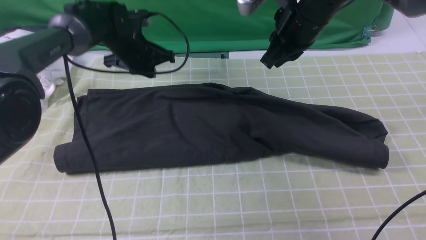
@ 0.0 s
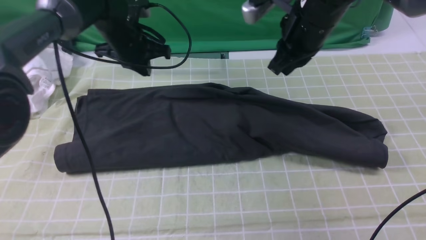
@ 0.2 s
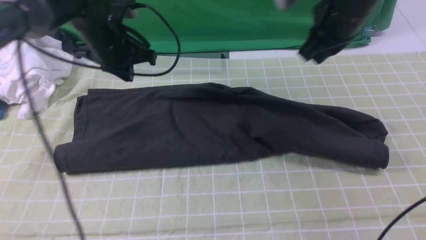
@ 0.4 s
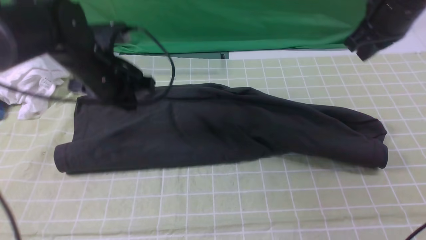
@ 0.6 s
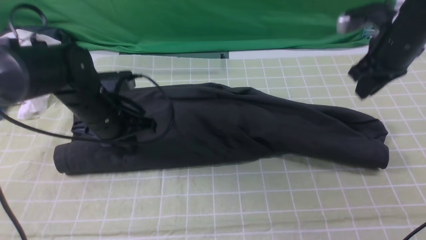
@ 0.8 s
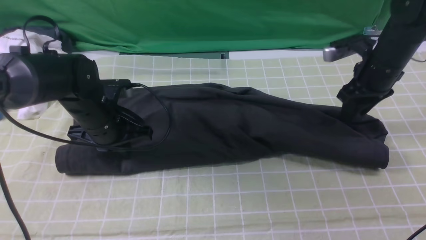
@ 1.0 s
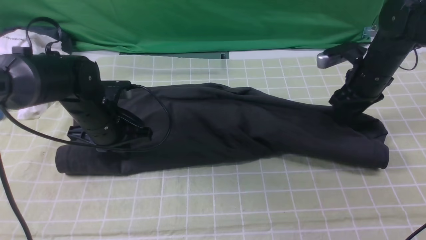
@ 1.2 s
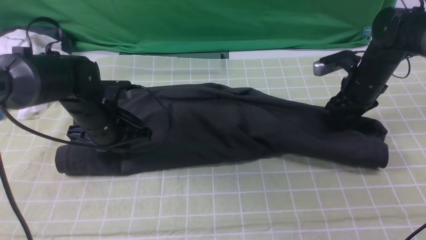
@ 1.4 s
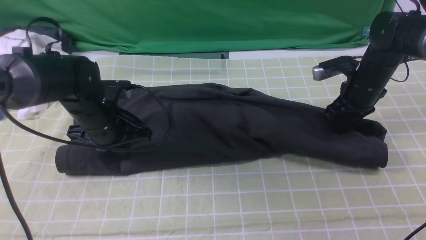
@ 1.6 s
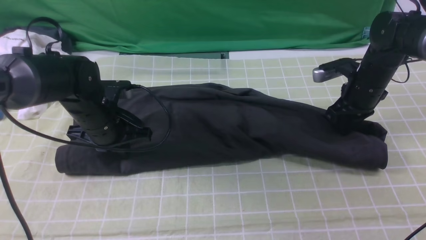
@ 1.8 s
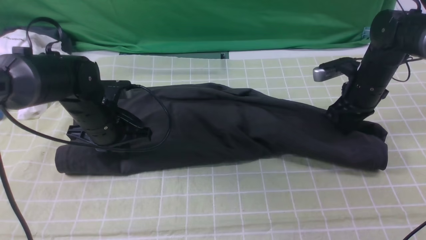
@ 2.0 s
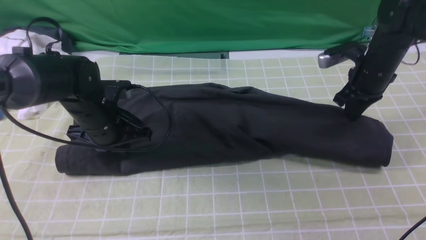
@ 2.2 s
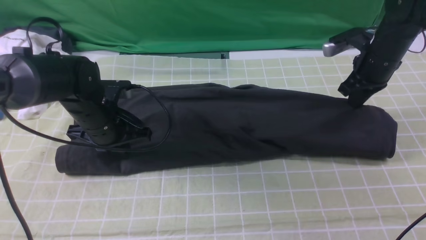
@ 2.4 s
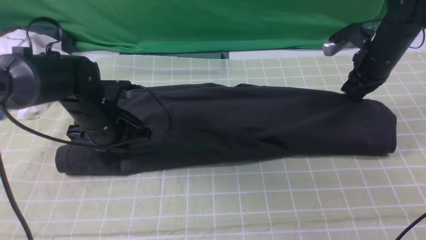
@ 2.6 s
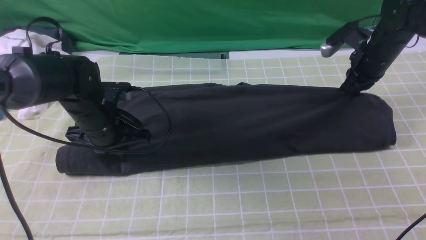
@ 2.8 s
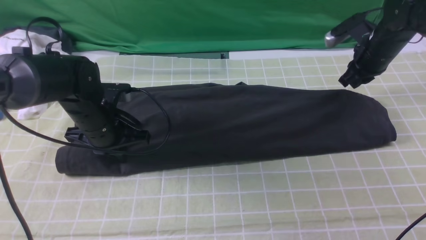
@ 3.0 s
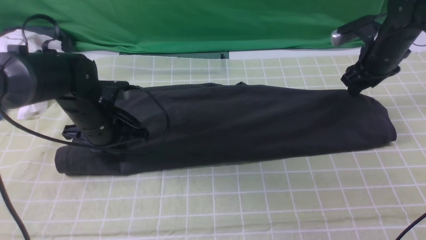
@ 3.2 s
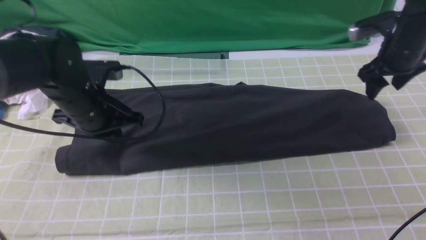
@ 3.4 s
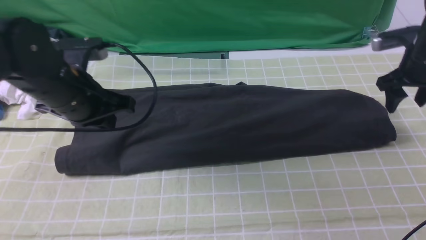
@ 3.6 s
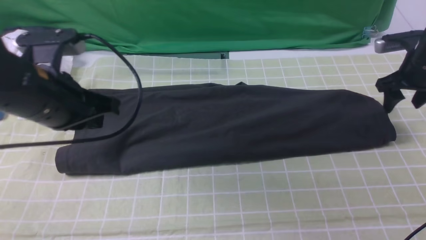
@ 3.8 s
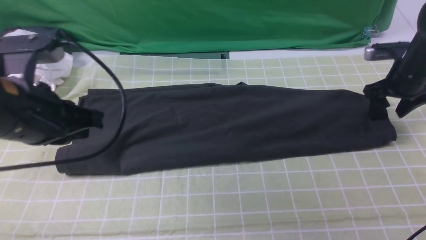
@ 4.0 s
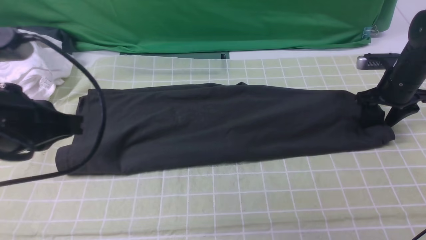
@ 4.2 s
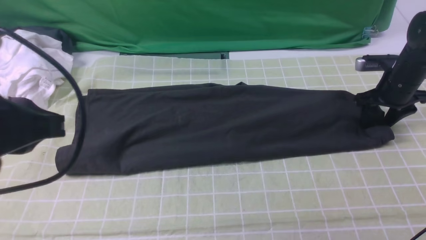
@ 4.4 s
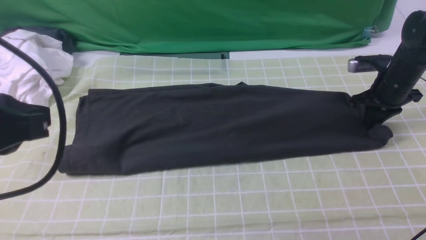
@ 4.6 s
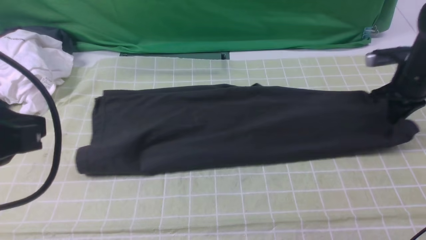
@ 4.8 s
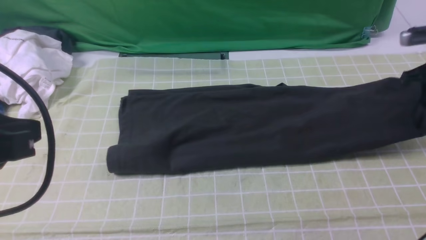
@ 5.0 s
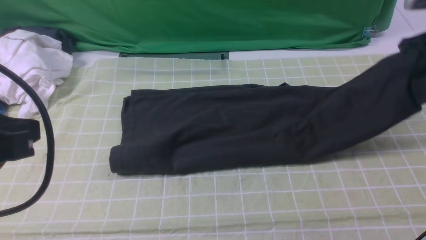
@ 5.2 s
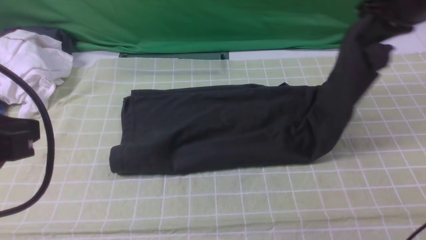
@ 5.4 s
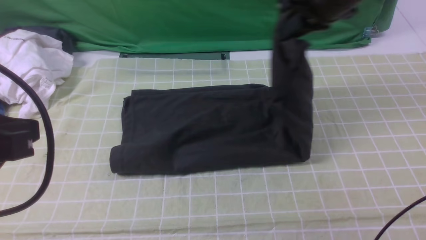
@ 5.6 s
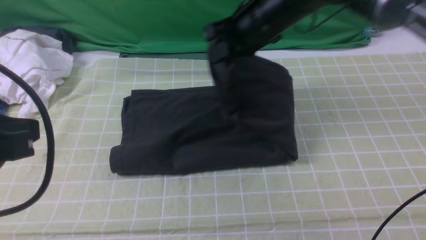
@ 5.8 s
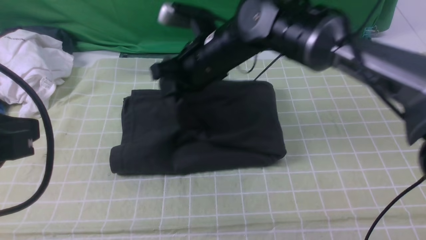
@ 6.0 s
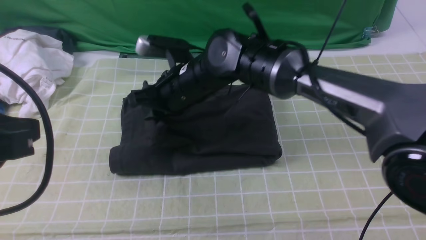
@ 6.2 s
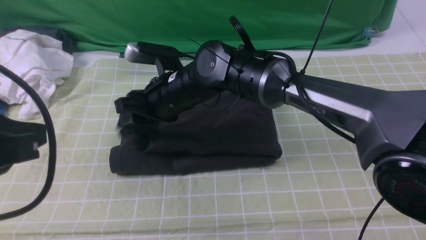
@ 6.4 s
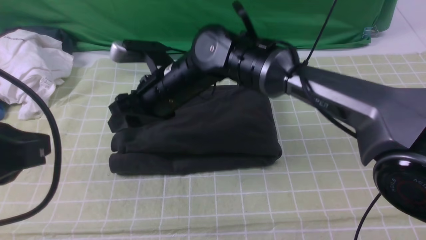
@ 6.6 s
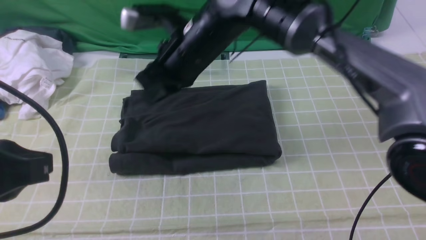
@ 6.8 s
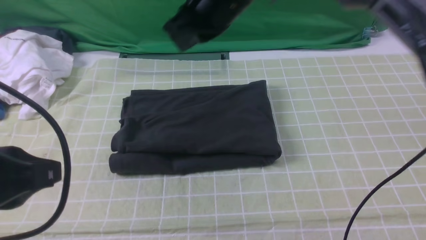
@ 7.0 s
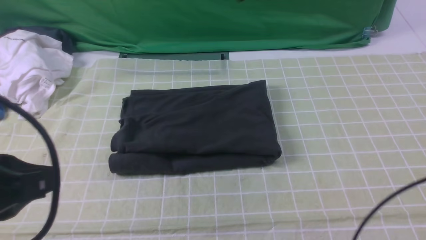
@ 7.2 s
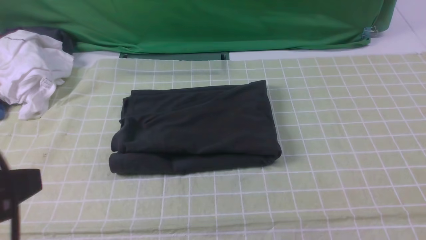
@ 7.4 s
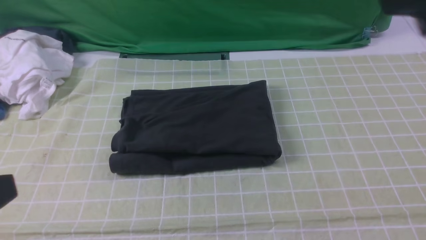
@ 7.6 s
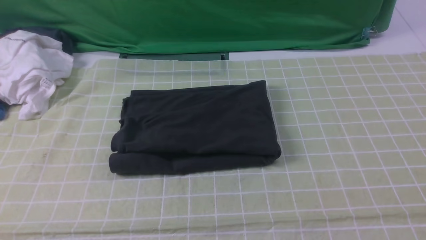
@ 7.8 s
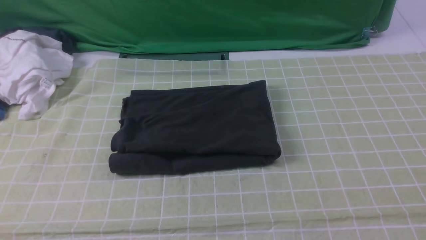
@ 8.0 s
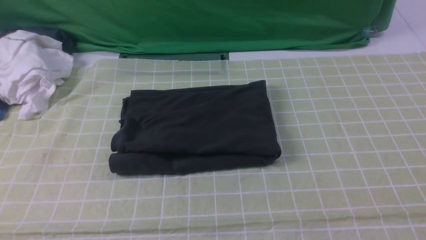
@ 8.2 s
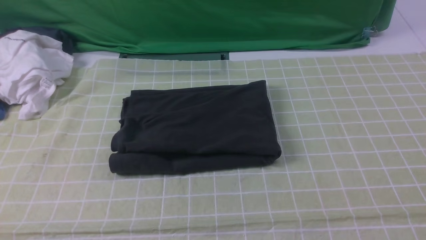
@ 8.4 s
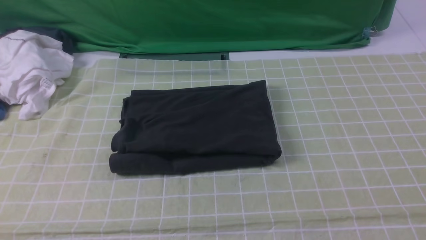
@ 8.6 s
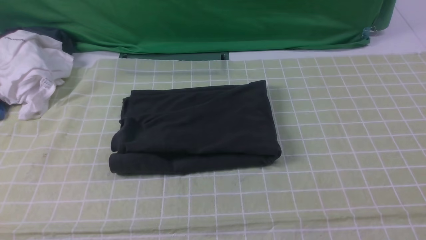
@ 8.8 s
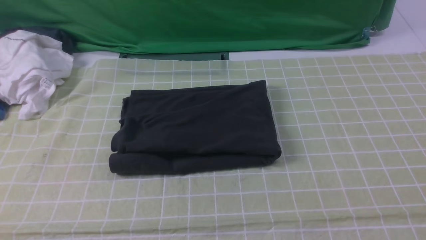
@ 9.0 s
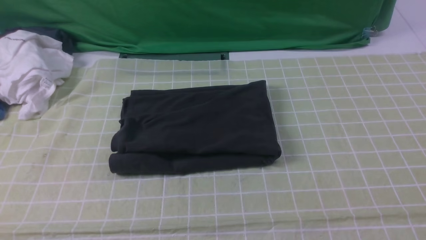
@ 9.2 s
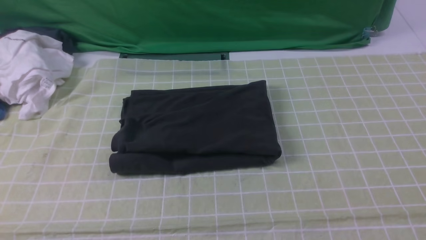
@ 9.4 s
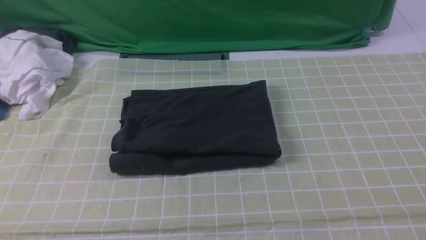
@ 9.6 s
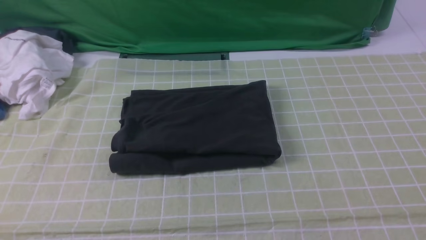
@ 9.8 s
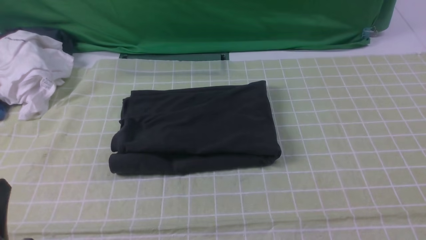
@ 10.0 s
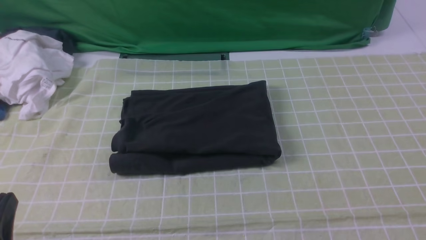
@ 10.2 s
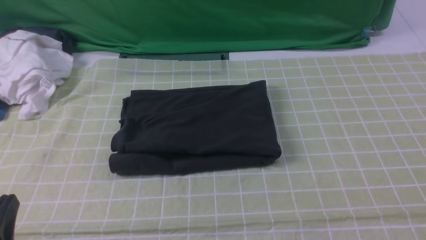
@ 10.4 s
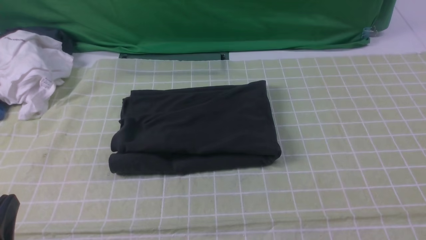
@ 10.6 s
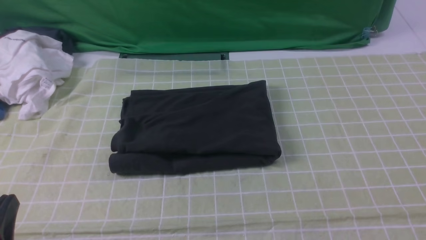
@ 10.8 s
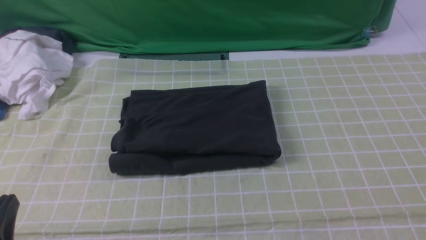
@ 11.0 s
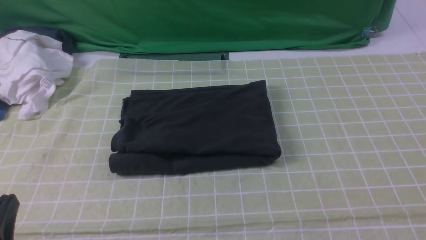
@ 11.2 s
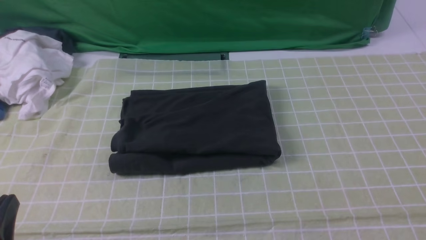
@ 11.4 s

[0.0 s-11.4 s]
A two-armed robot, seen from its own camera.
Step, 0.0 to 4.6 s: use the right arm to clamp the right edge of the fabric.
Step, 4.8 to 6.6 s: use the right arm to drag the right edge of the fabric to the left and folds it over the left edge.
0.0 to 1.4 s: The right gripper shifts roughly 20 cm downward and to the right, and opens. The left gripper is displaced backward by roughly 15 cm.
1.4 to 2.8 s: The right gripper closes up.
2.8 to 4.2 s: The right gripper shifts approximately 5 cm to the right, and opens its fingers. The left gripper moves upward and backward, about 25 cm.
4.2 to 5.6 s: The right gripper shifts some 25 cm to the left and upward, and closes its fingers, while the left gripper is displaced backward by about 5 cm.
5.6 to 7.2 s: The right gripper shifts some 15 cm upward, backward and to the left, and opens, then closes once more.
7.2 to 8.6 s: The right gripper shifts about 40 cm backward and to the right. Meanwhile the left gripper goes approximately 5 cm backward.

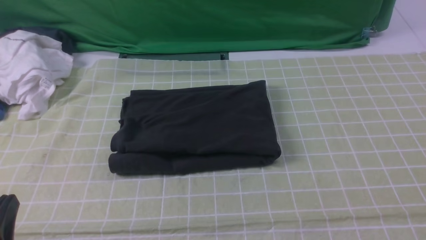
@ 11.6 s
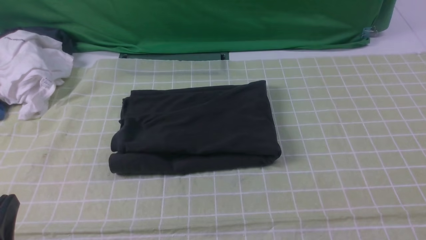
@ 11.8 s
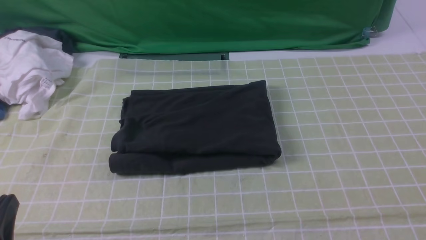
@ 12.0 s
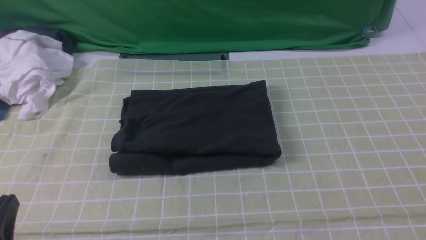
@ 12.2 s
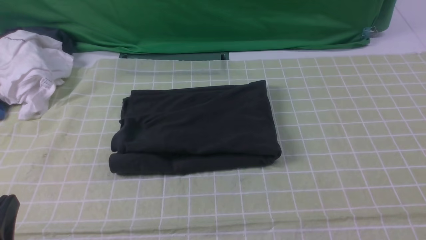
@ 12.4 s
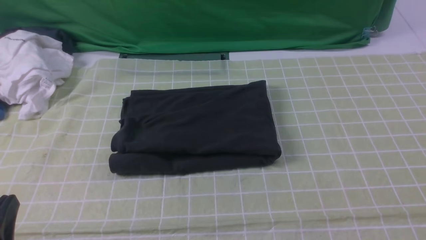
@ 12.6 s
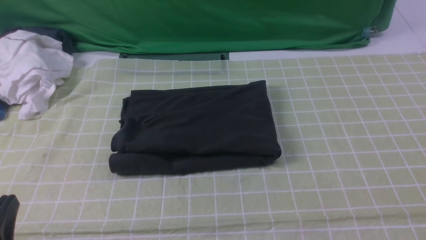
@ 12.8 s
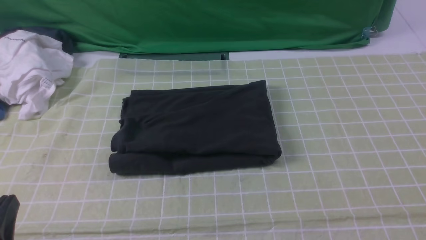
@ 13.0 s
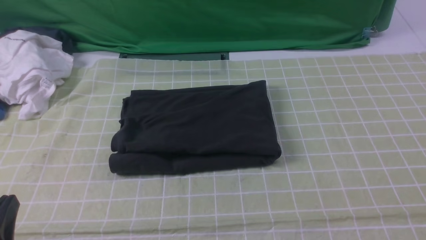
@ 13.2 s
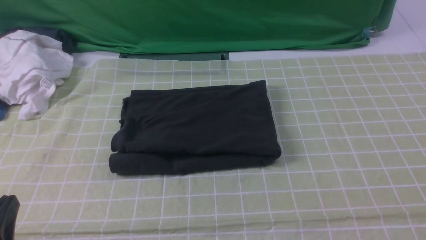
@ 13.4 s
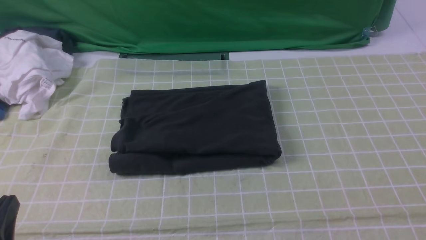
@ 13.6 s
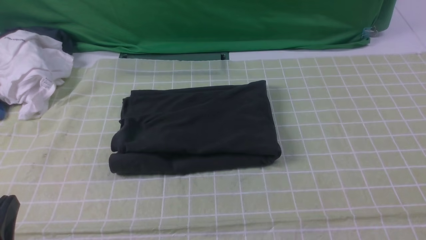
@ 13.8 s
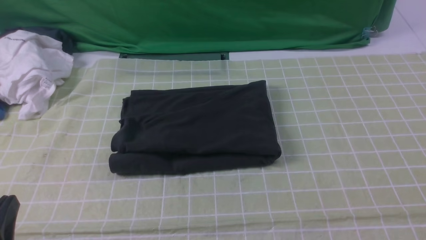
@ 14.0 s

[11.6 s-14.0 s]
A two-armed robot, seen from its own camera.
12.8 to 14.0 s: Neither gripper changes place.
